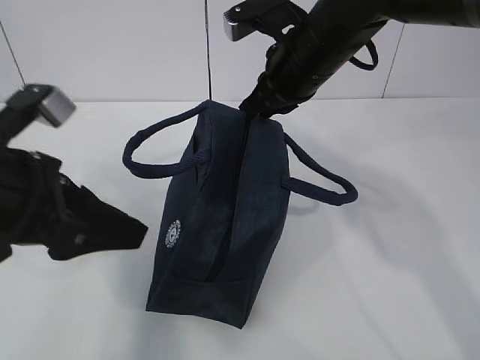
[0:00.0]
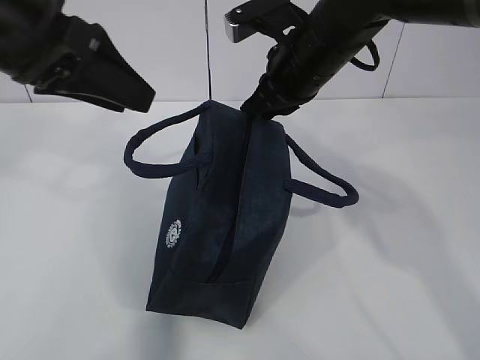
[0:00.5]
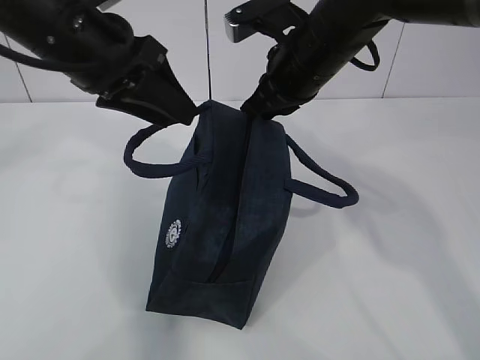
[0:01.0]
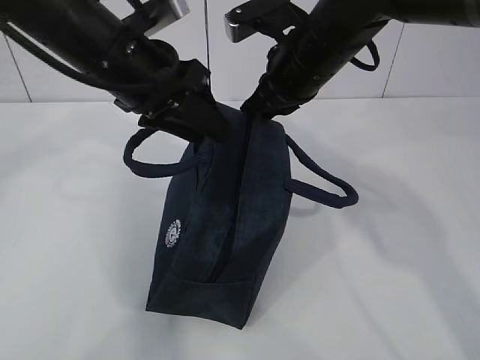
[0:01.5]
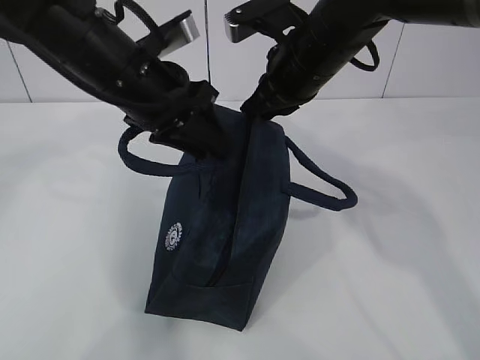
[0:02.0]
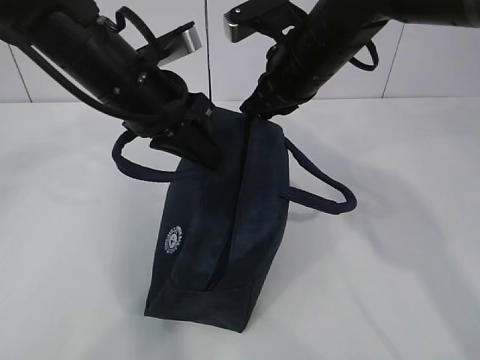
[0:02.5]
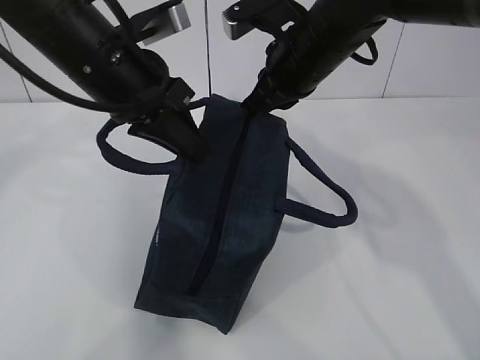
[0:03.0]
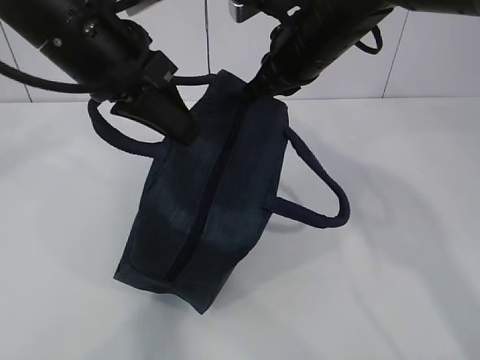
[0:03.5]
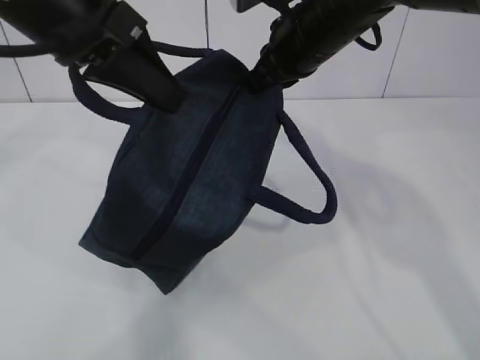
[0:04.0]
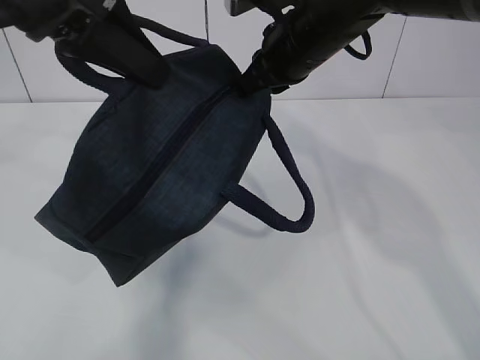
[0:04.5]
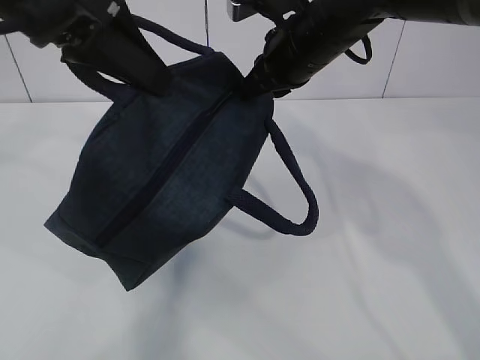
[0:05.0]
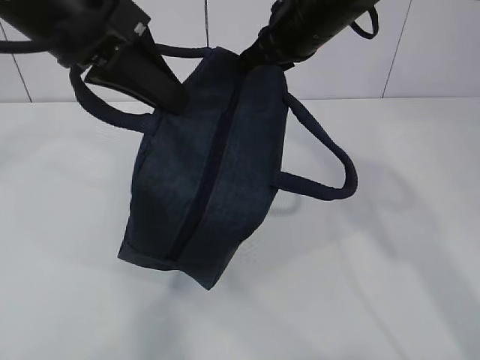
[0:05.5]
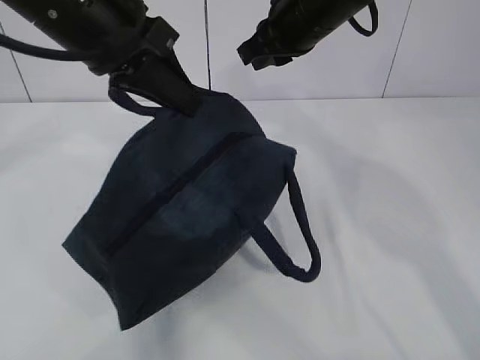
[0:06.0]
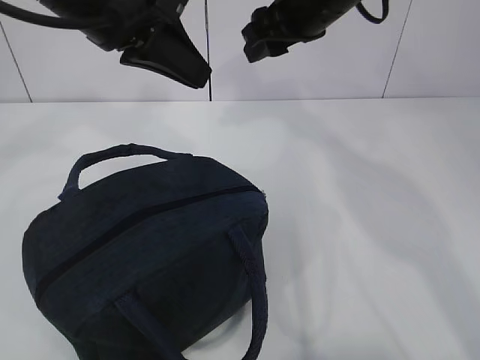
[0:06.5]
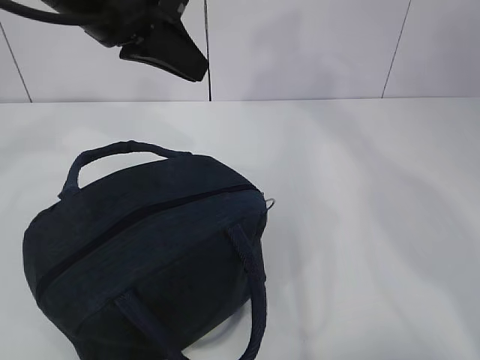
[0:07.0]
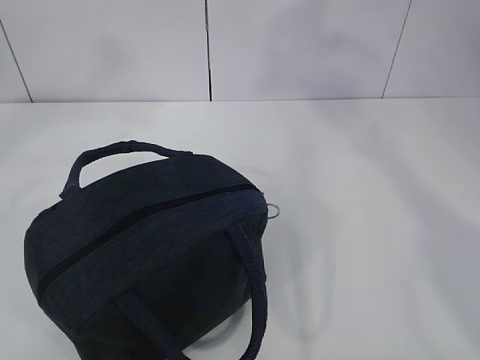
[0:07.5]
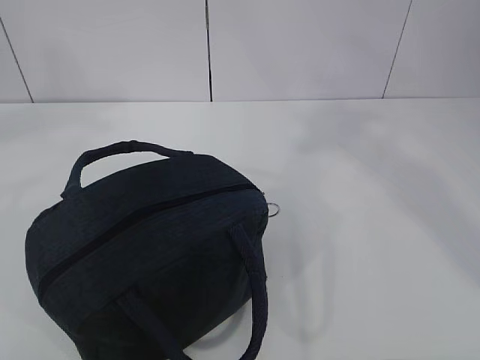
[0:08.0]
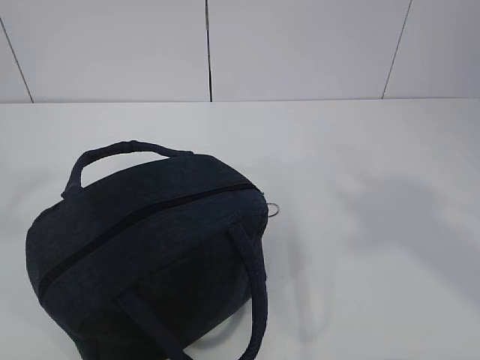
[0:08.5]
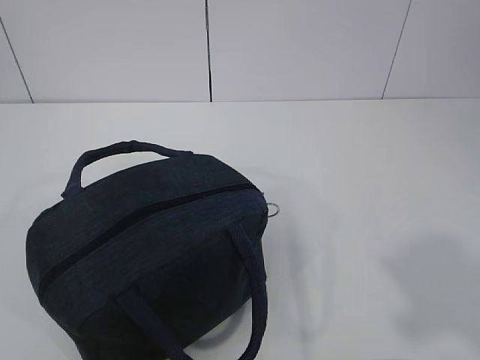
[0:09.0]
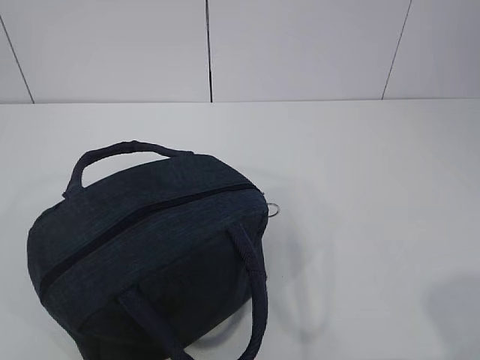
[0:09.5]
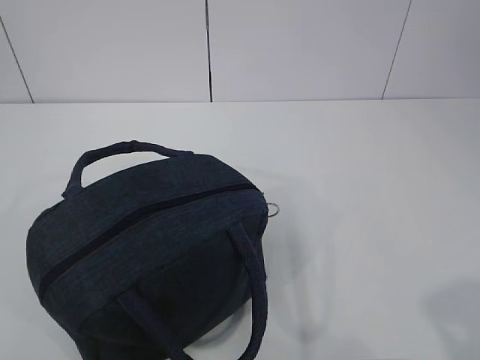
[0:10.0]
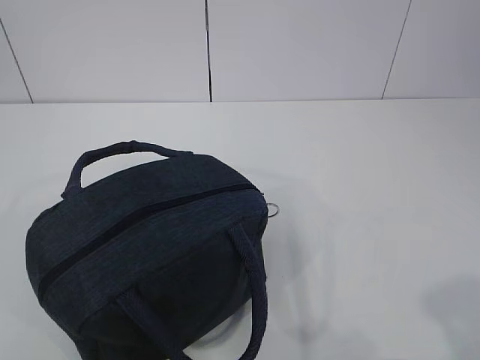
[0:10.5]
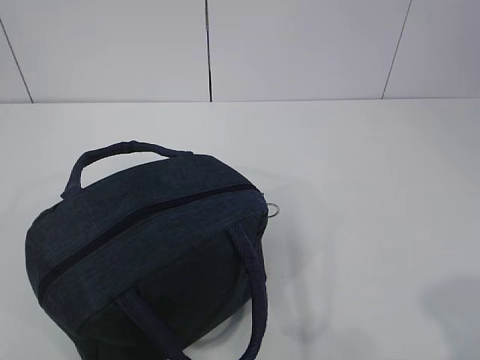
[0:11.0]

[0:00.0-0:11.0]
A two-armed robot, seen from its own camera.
0:00.0 to 0:02.0: The left gripper travels forward and to the right by roughly 15 cm.
0:02.0 to 0:03.5: The left gripper moves upward, some 5 cm, and closes.
0:05.5 to 0:07.5: The right gripper travels upward, backward and to the right by about 30 cm, and opens. Meanwhile the left gripper travels upward by approximately 10 cm.
0:07.5 to 0:09.0: The right gripper travels backward and downward by some 35 cm. Meanwhile the left gripper travels backward and to the left by some 30 cm.

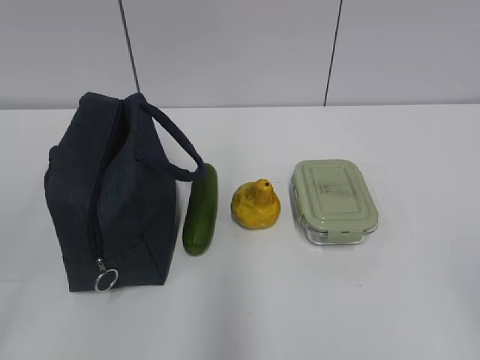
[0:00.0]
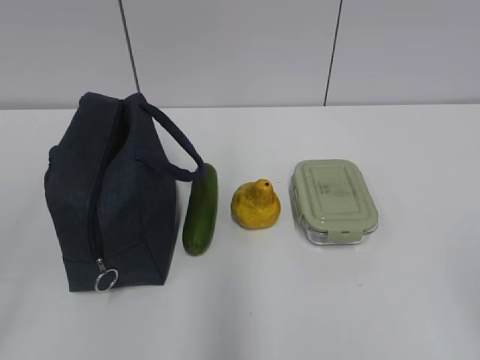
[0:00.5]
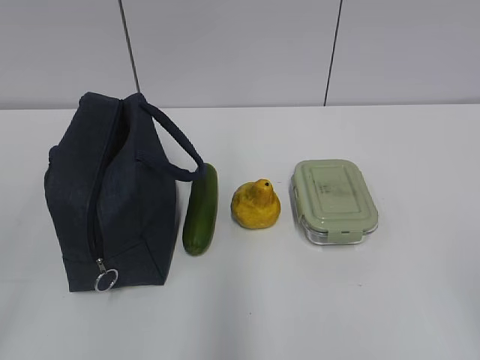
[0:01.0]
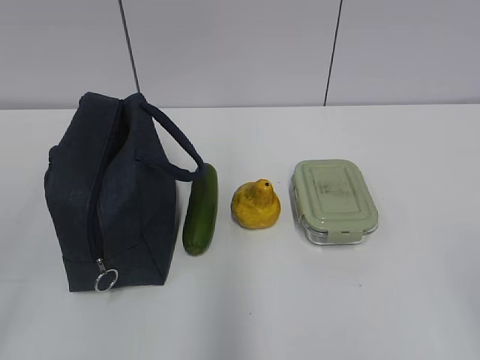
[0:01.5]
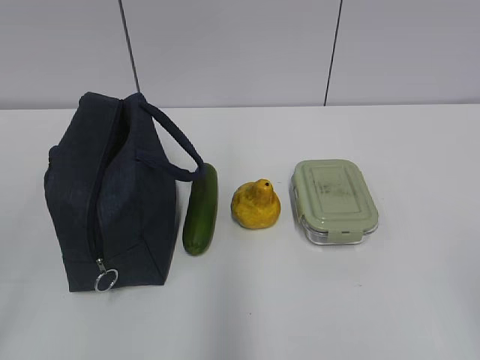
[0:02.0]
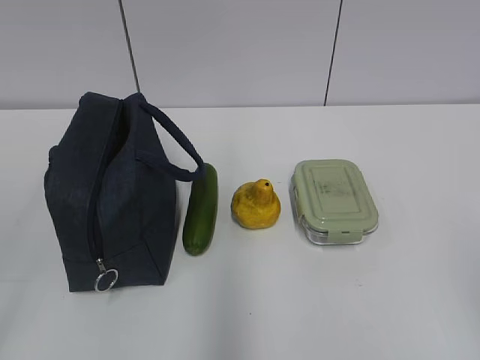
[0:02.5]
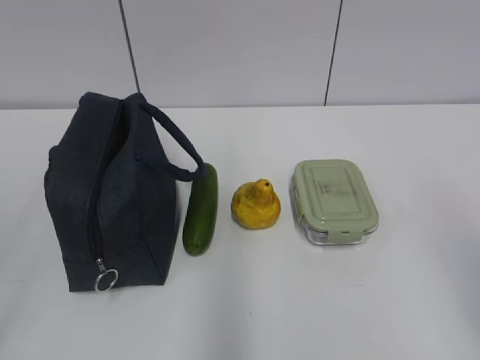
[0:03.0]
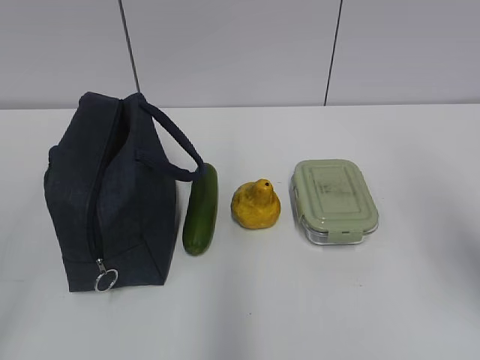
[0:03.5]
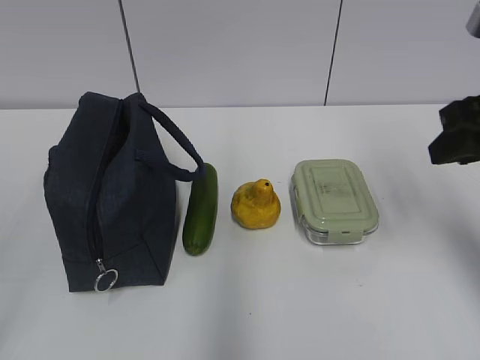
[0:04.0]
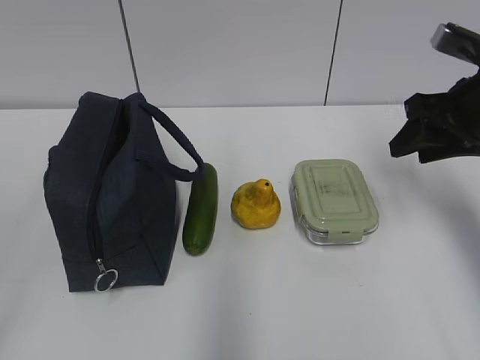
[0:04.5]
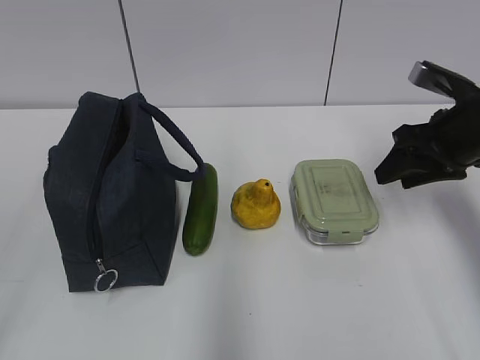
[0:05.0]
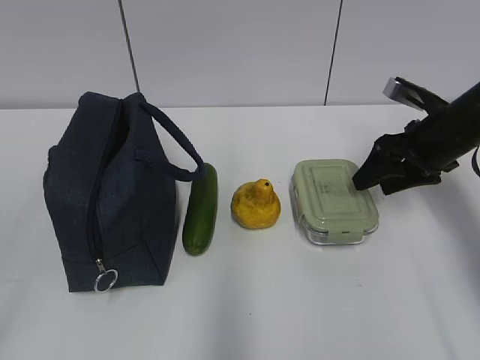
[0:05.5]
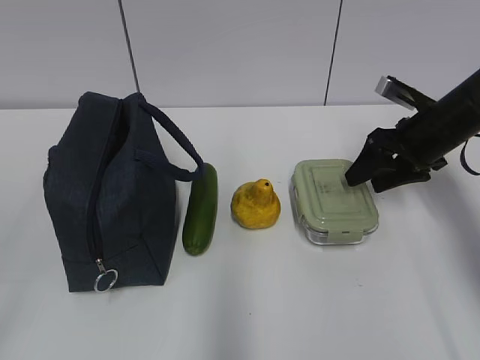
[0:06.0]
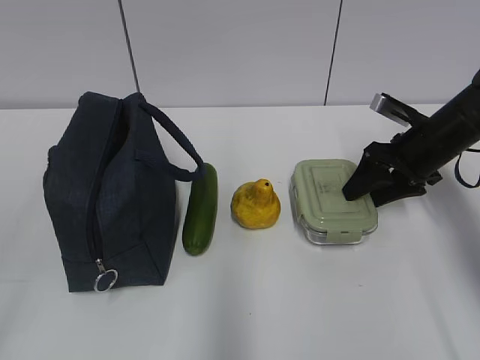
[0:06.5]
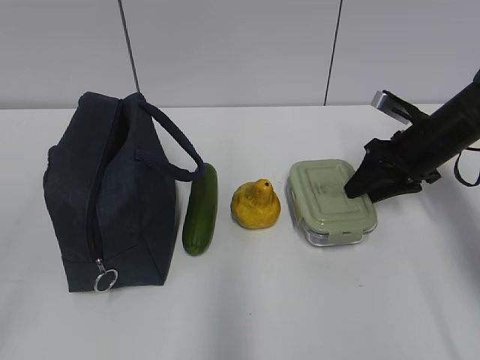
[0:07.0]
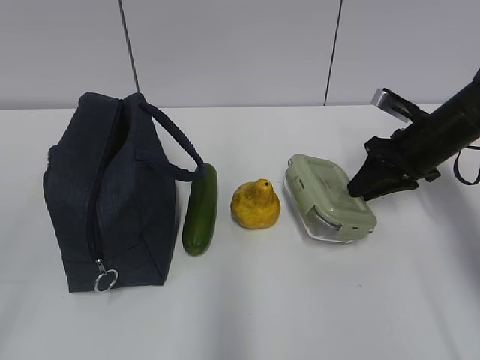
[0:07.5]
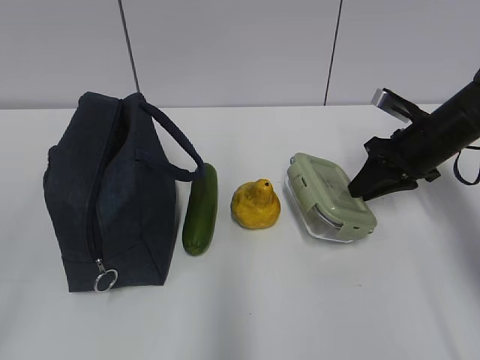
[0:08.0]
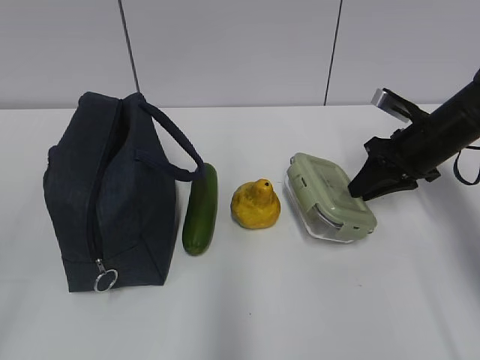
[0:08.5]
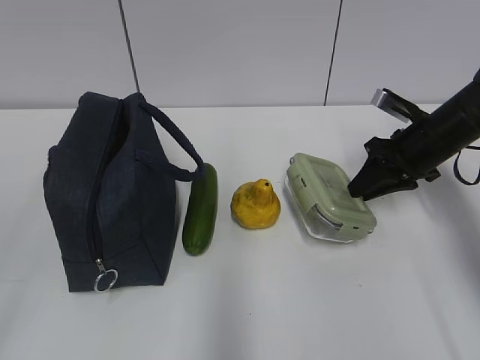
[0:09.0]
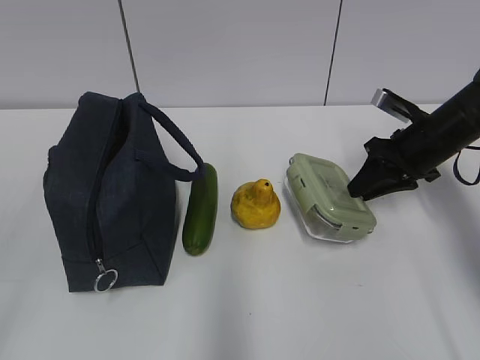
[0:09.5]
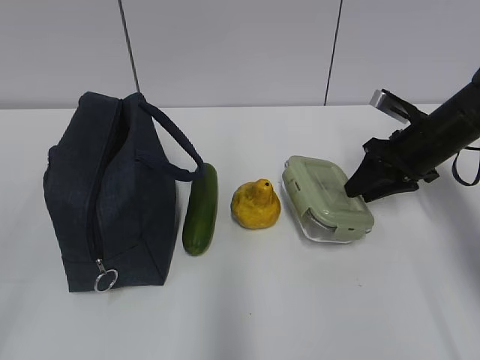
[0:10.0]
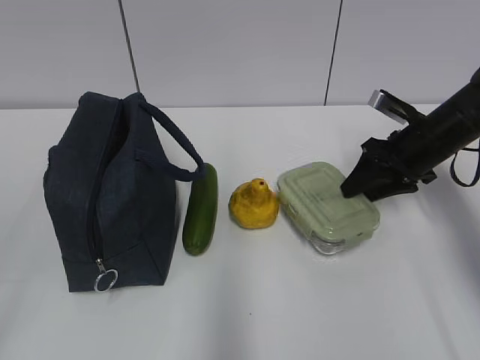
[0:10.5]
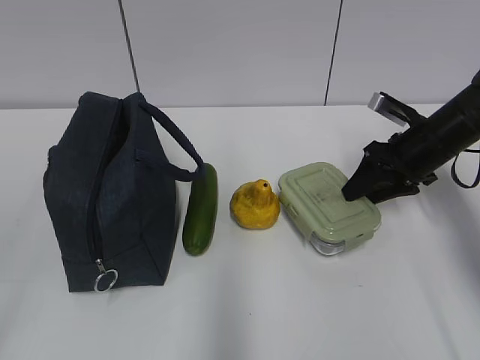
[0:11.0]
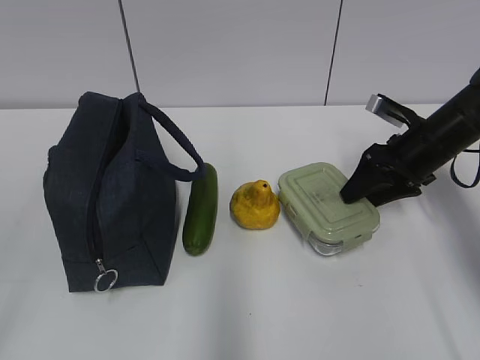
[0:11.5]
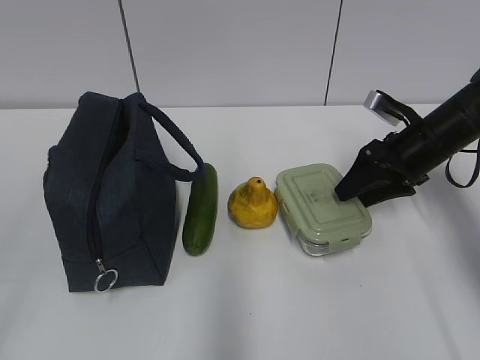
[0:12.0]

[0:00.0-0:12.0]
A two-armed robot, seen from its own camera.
0:02.0 to 0:04.0: The right gripper shifts roughly 25 cm forward.
0:04.0 to 0:06.0: The right gripper shifts about 20 cm forward and downward, and opens its fingers.
0:06.0 to 0:08.0: The right gripper closes.
0:08.0 to 0:10.0: Both grippers stay put.
0:10.0 to 0:12.0: There are only small adjustments of the grippers.

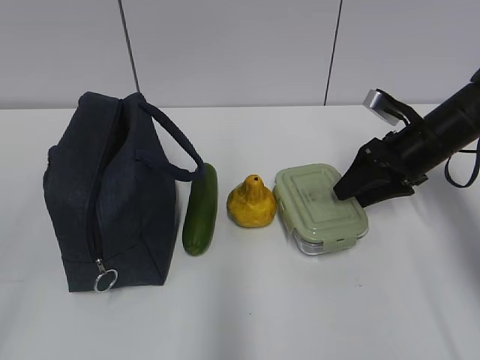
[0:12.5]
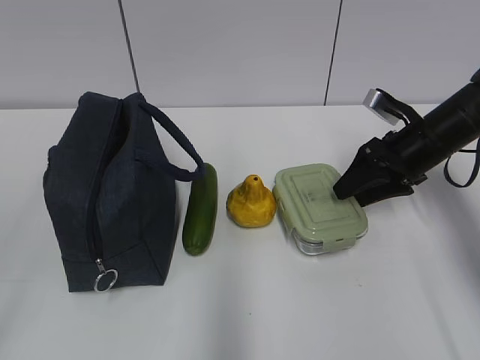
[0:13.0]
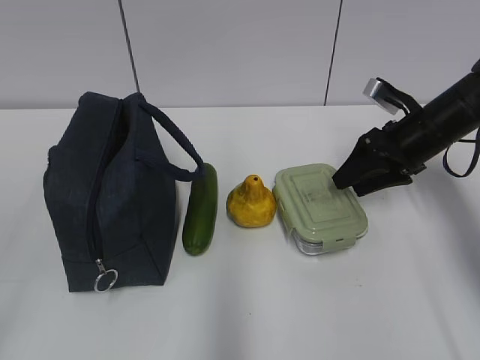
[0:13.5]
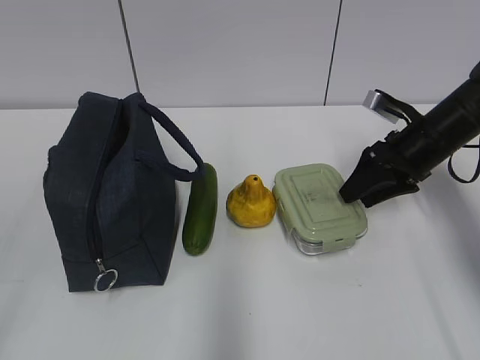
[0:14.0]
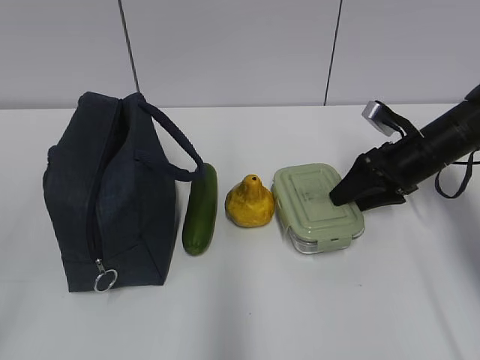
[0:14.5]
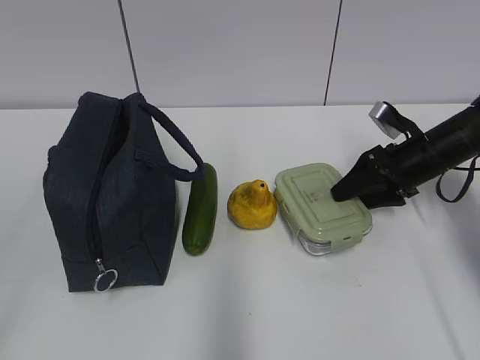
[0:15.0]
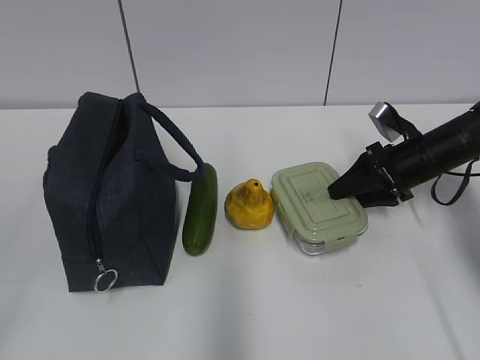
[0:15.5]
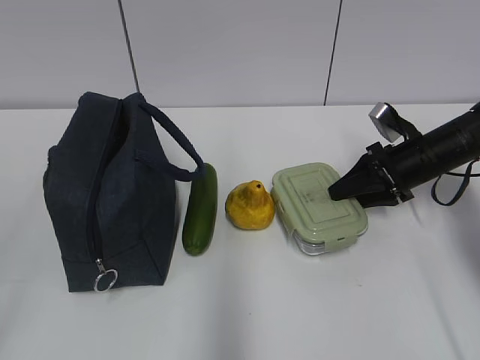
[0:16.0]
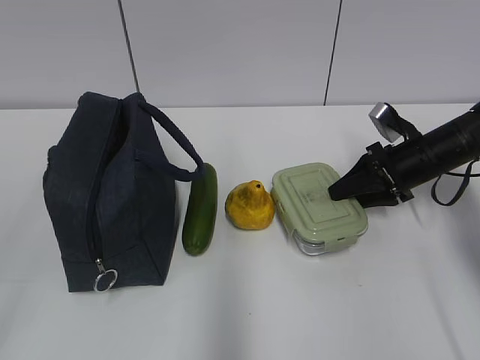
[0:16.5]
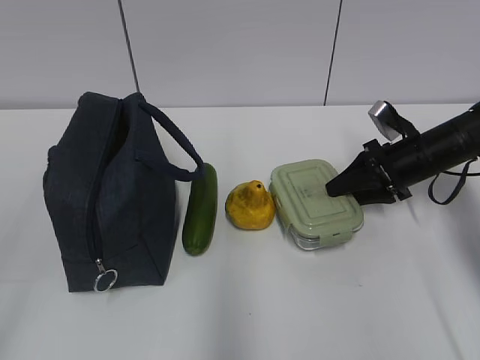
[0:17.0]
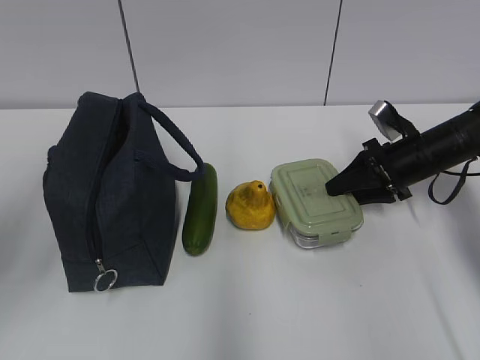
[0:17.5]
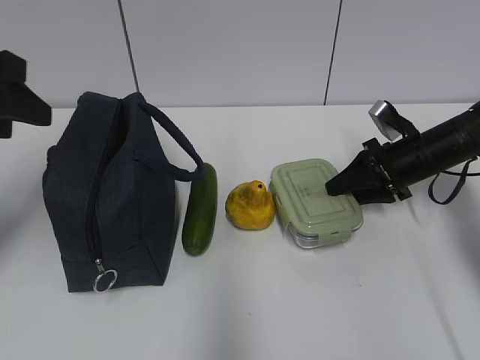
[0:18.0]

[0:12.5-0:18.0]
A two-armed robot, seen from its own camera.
0:12.5 to 0:16.0: The grippers stay close to where they were, moving slightly.
0:16.0 to 0:18.0: The left gripper travels forward by some 25 cm.
